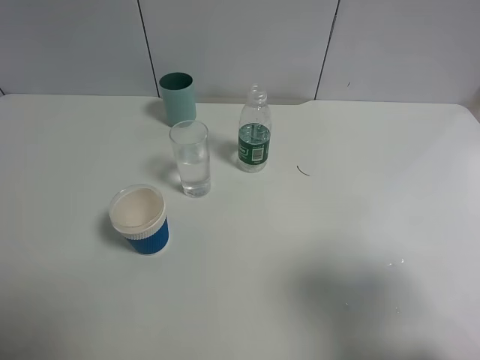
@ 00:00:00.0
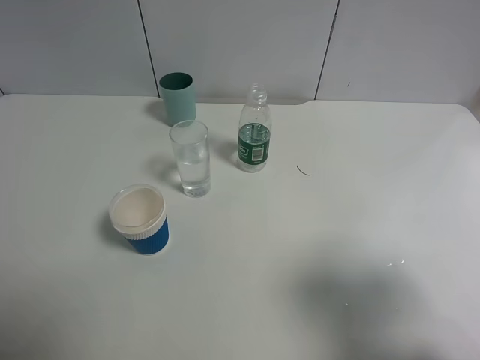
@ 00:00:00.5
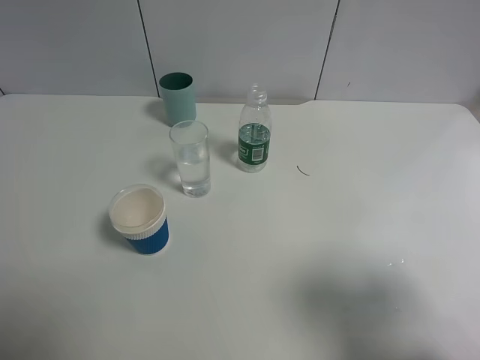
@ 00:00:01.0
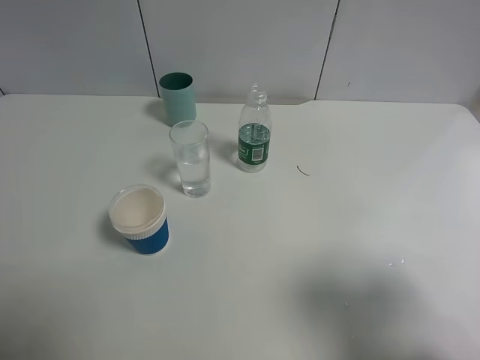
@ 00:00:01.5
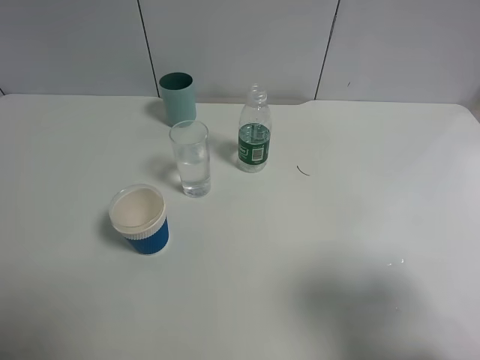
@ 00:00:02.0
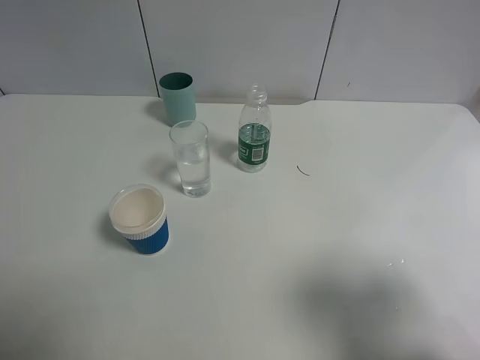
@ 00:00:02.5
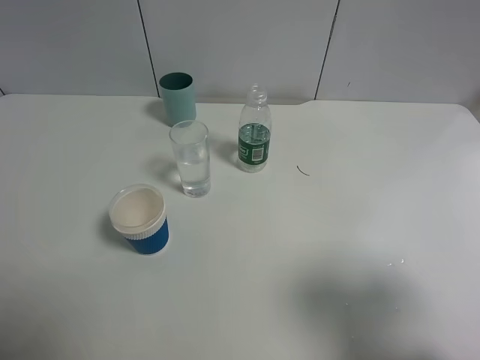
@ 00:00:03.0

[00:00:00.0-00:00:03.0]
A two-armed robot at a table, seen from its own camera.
Task of the whole recording: use a gripper to hold the bottle of the drink and pour it into a random cup.
00:00:01.5 to 00:00:03.0: Both grippers stay about where they are.

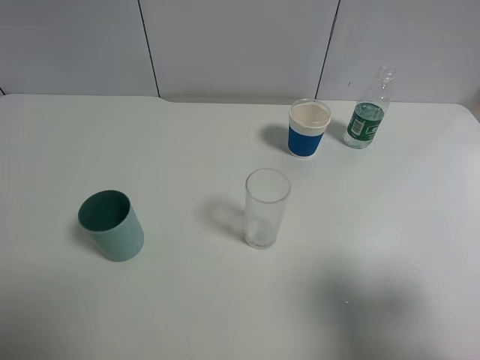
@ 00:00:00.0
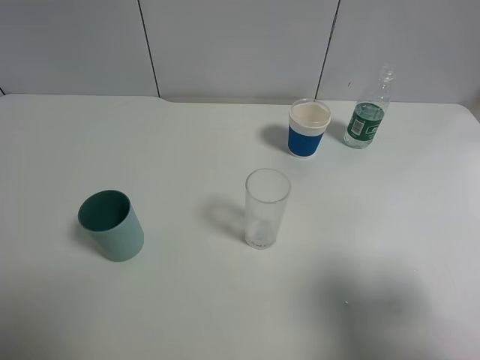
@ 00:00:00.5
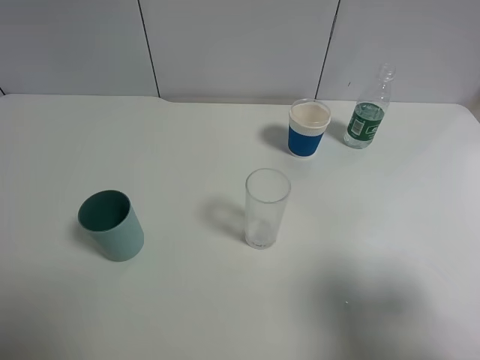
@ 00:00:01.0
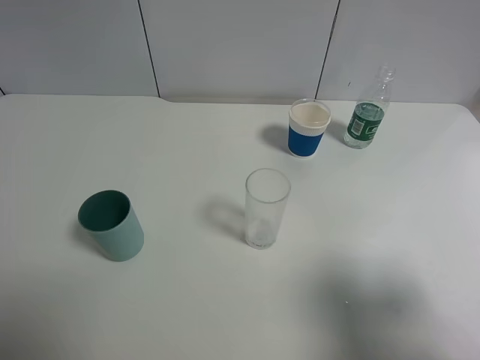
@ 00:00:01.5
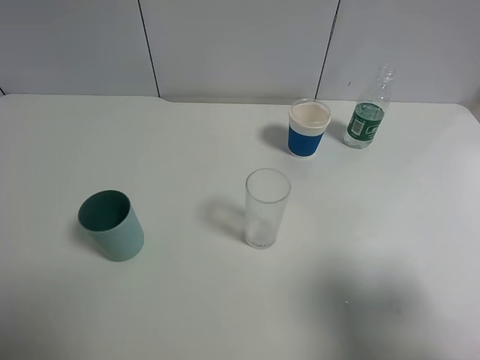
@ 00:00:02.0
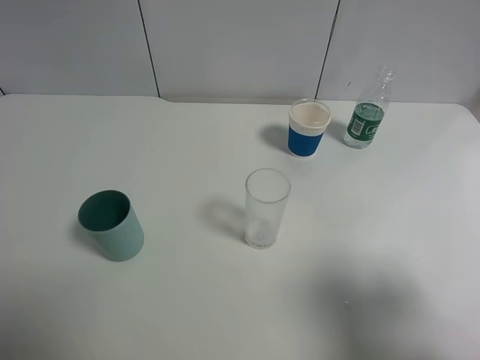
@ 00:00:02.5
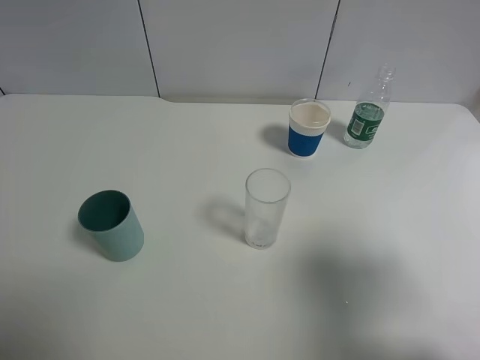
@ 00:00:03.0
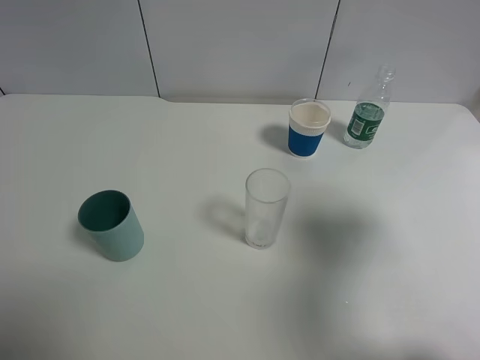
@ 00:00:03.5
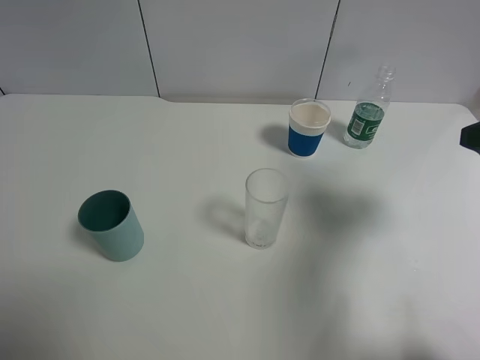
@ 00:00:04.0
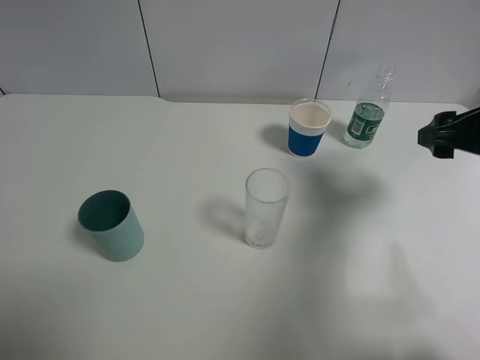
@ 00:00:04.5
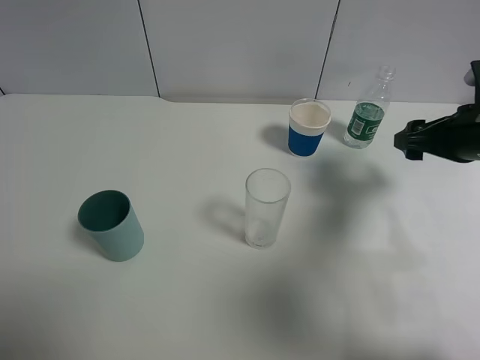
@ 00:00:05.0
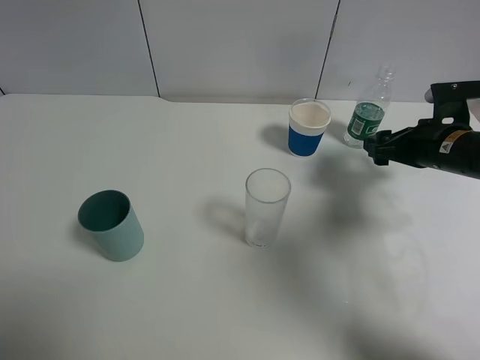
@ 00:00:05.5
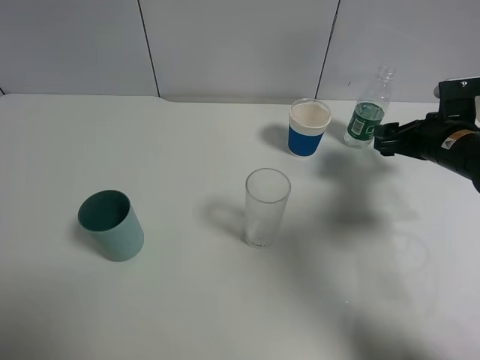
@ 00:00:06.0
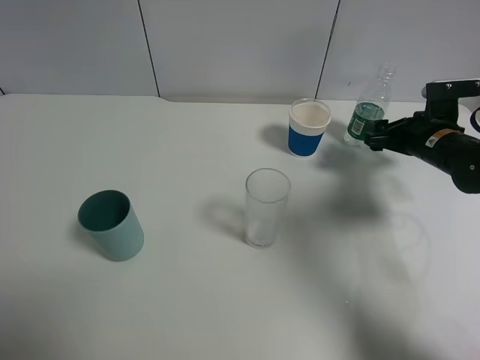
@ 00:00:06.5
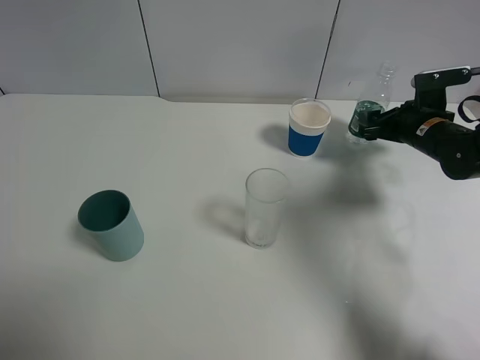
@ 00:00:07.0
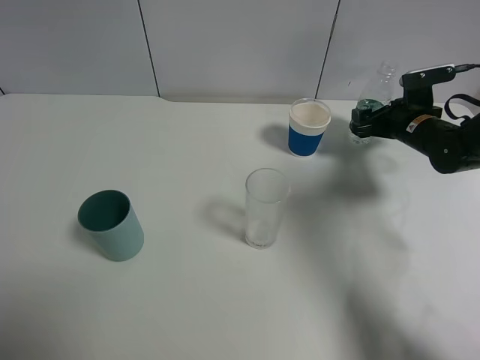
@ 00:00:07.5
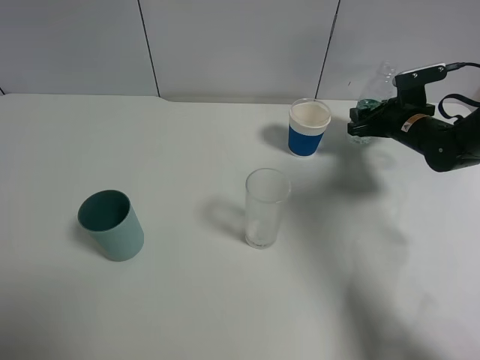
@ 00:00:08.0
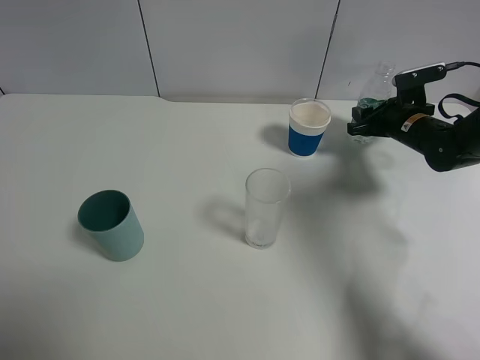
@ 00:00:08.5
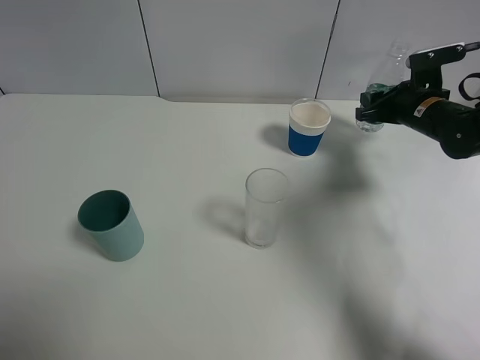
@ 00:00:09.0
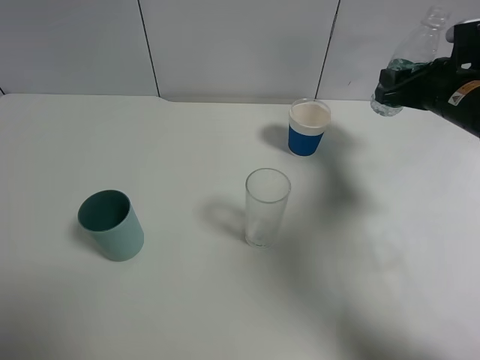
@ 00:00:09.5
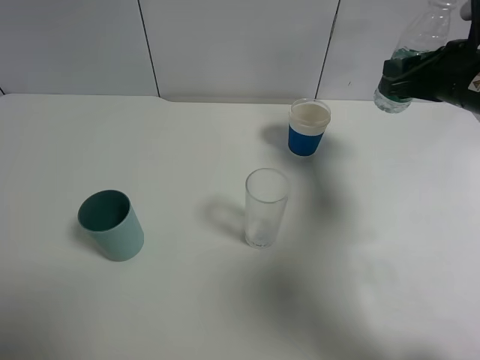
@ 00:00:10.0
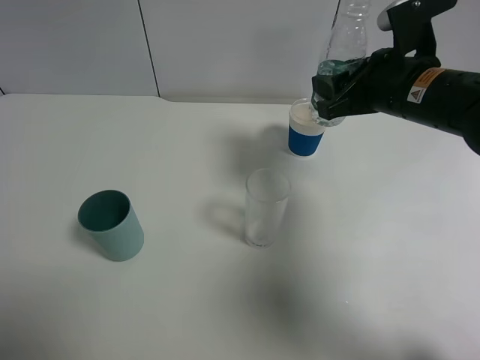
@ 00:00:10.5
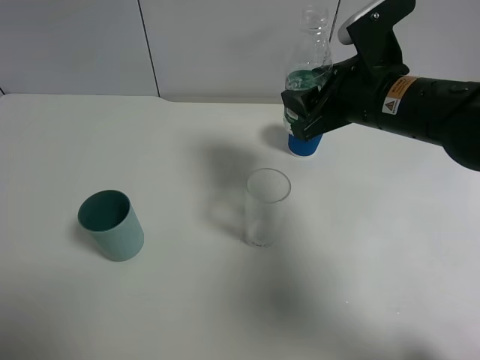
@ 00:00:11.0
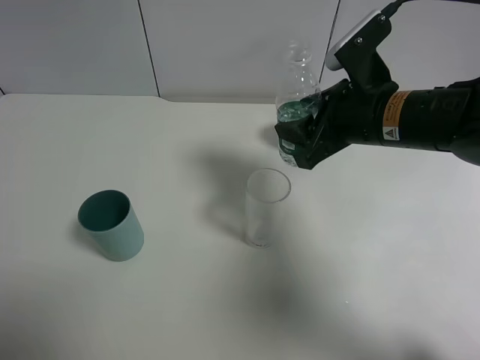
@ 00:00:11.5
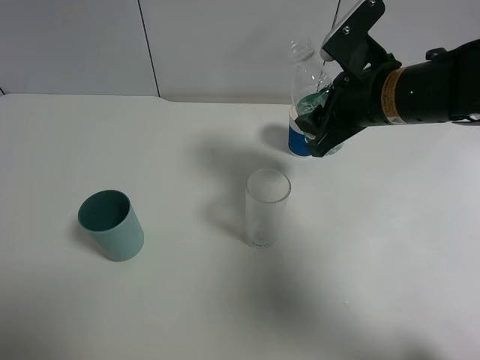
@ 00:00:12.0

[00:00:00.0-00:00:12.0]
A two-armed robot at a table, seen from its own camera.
Task of the whole recording: use a gripper to hold the bottle of the drink and pour it into a random cup.
Step, 00:00:00.0 to 00:00:08.5: Grasp the mineral water bottle with the right gripper.
00:00:00.0 to 00:00:02.0: Both grippers stay about where they are.
00:00:02.0 to 00:00:04.0: The right gripper moves forward, roughly 15 cm.
00:00:04.0 to 00:00:06.0: The right gripper heads forward and downward, covering roughly 20 cm.
00:00:06.0 to 00:00:08.0: The right gripper shifts some 10 cm forward, and closes up.
00:00:08.0 to 00:00:10.0: The right gripper moves upward and backward, some 15 cm.
00:00:10.0 to 00:00:12.0: The right gripper travels to the left by some 10 cm.

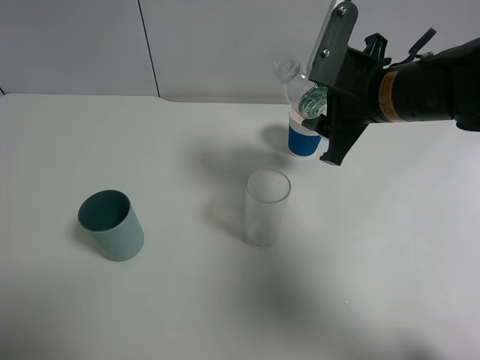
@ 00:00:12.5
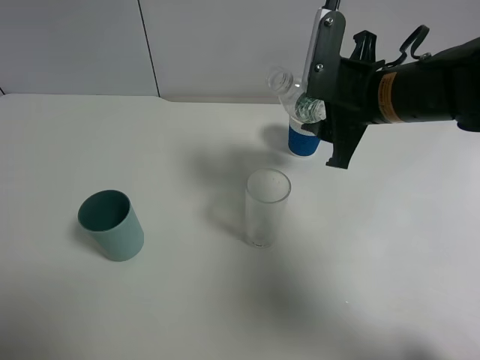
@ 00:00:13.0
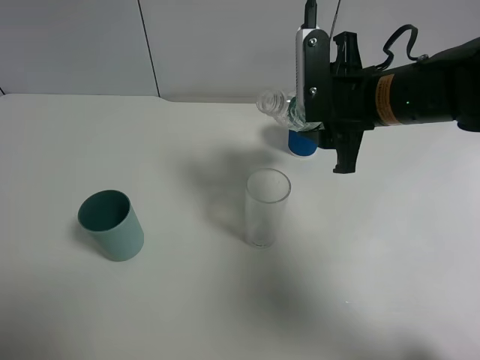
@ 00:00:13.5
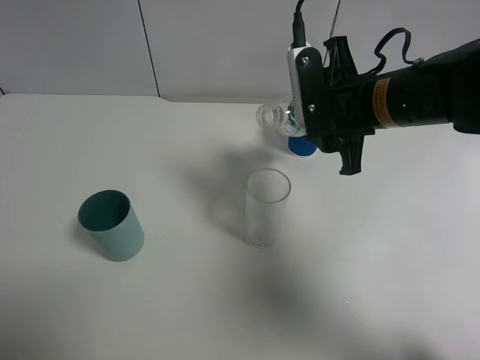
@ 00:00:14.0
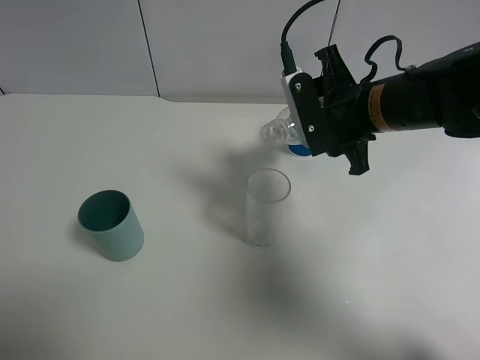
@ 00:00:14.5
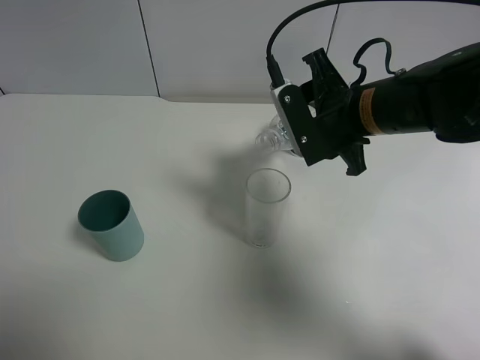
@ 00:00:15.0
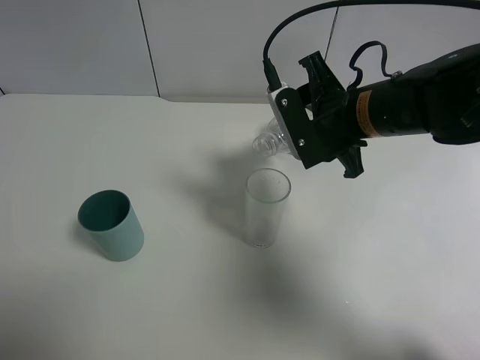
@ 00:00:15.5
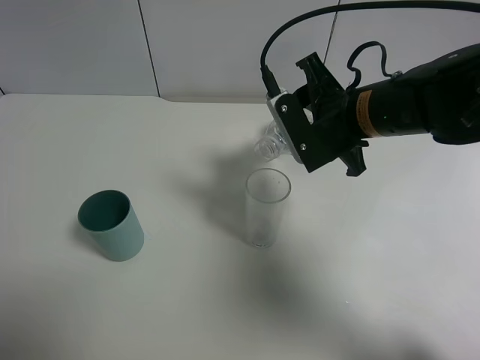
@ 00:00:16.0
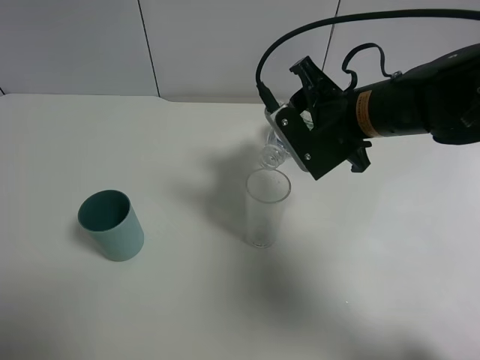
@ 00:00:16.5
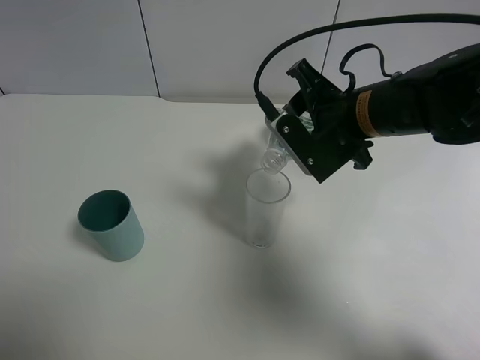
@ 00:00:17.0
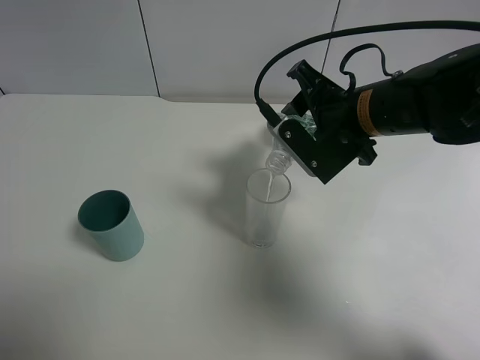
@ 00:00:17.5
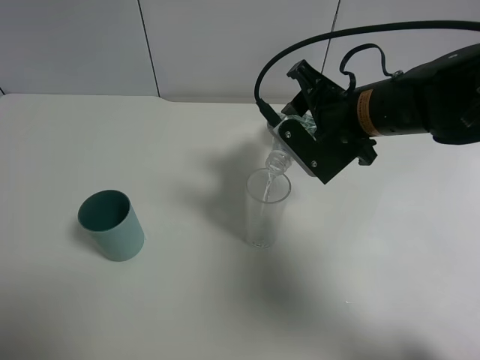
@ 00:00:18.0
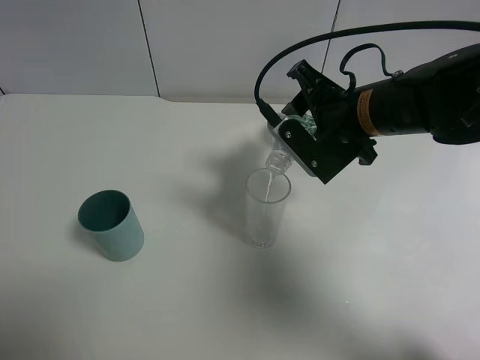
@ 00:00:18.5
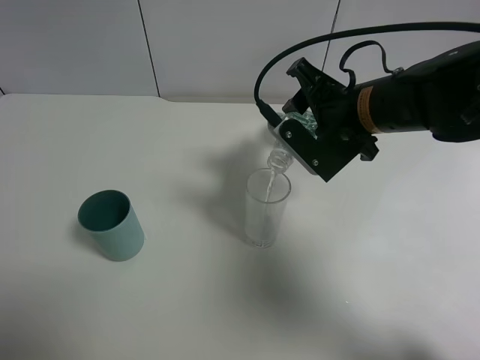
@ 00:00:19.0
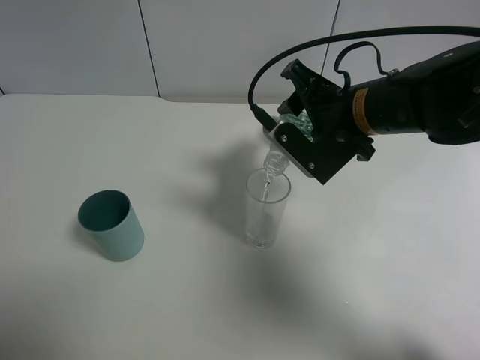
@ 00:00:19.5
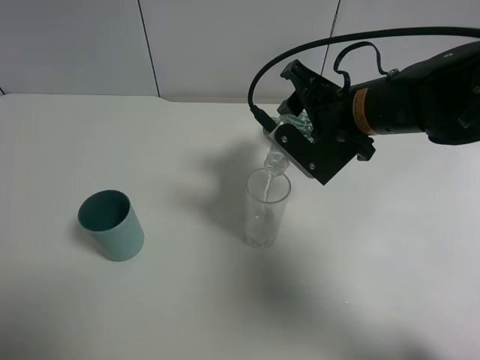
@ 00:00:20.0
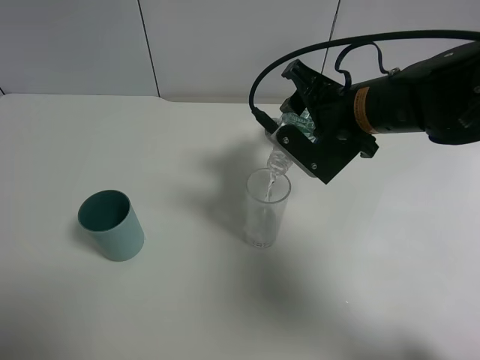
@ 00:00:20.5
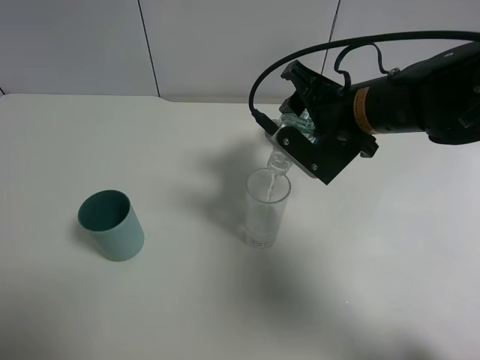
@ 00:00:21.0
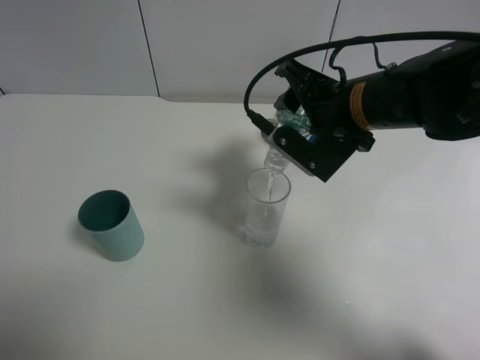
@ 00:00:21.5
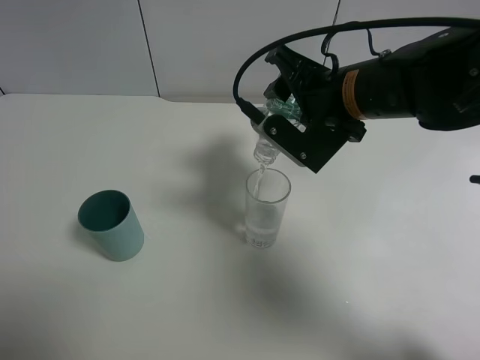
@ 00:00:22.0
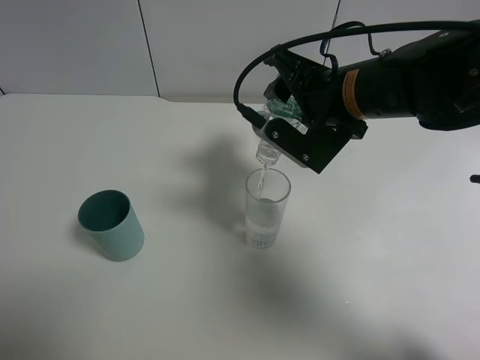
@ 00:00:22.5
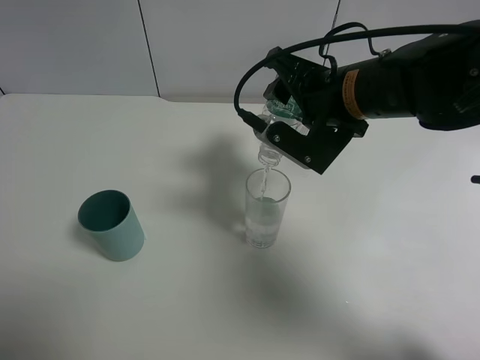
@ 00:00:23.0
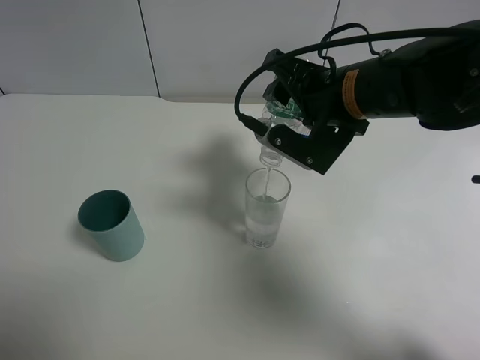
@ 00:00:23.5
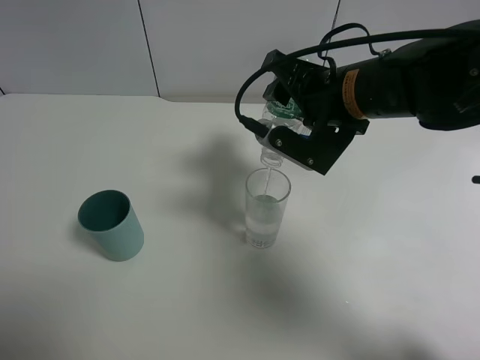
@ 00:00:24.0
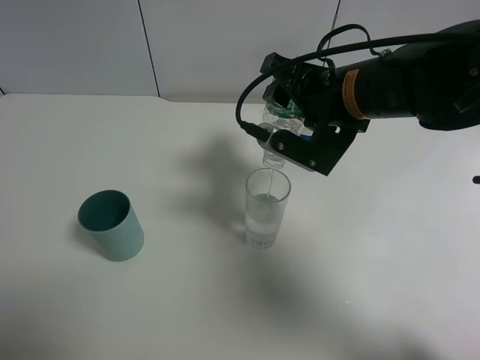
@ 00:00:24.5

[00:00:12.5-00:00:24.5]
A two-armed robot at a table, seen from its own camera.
Task of the whole recording: use a gripper to hold the bottle of the drink and pour it into a random cup.
00:00:14.5 to 00:00:16.5: There are only small adjustments of the grippers.
00:00:16.5 to 00:00:20.5: There are only small adjustments of the grippers.
00:00:20.5 to 00:00:24.5: The grippers stay close to where they were, moving slightly.
